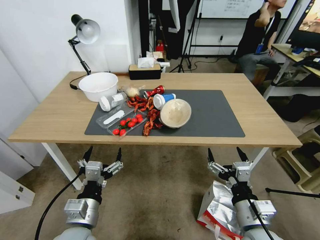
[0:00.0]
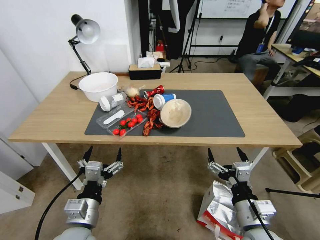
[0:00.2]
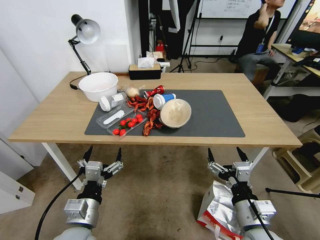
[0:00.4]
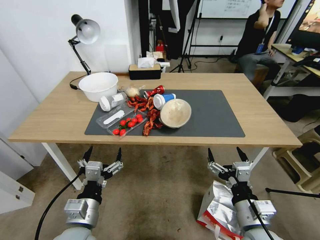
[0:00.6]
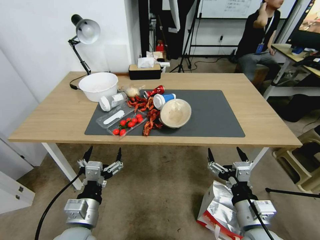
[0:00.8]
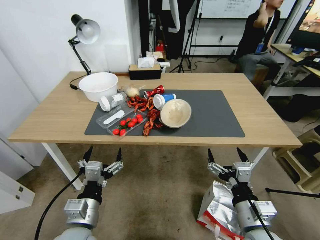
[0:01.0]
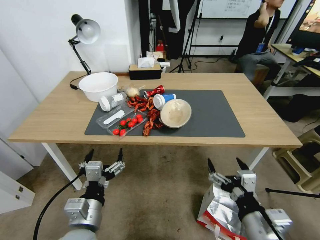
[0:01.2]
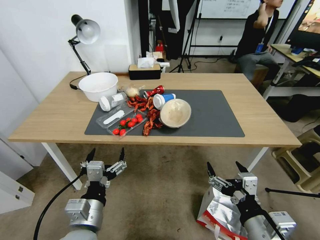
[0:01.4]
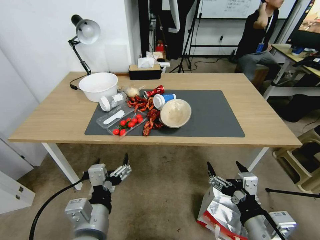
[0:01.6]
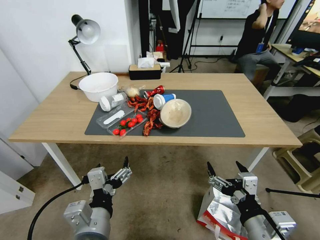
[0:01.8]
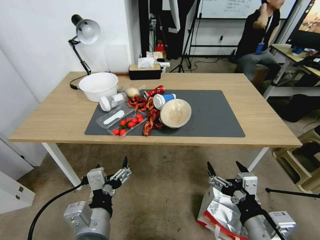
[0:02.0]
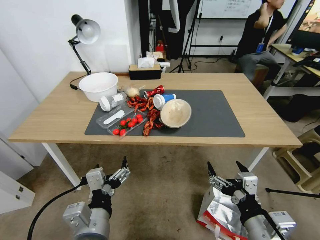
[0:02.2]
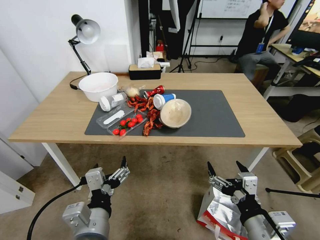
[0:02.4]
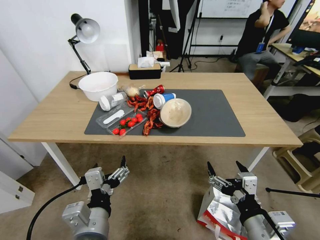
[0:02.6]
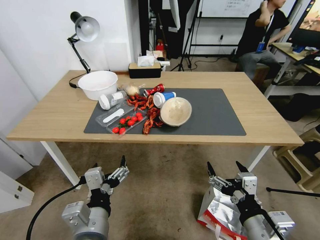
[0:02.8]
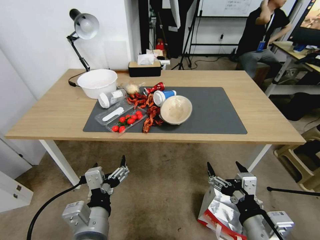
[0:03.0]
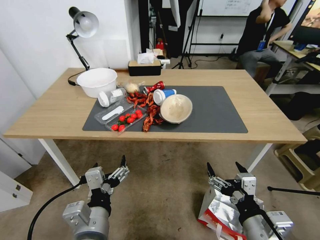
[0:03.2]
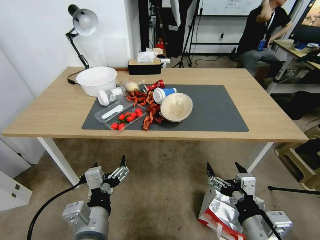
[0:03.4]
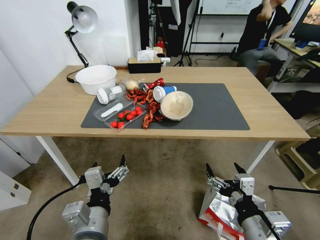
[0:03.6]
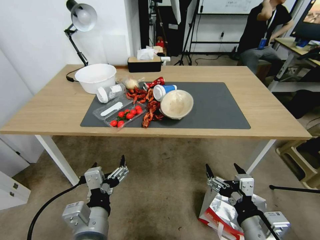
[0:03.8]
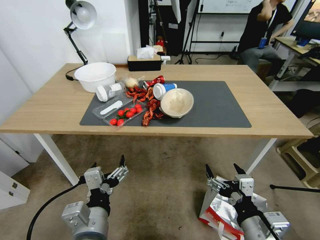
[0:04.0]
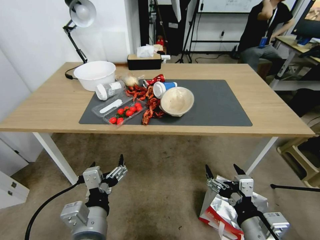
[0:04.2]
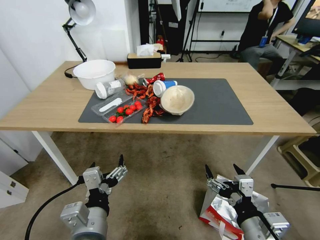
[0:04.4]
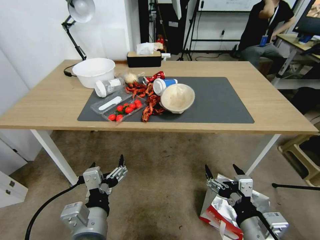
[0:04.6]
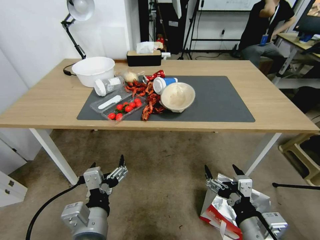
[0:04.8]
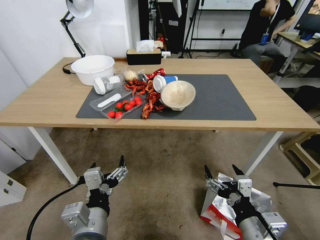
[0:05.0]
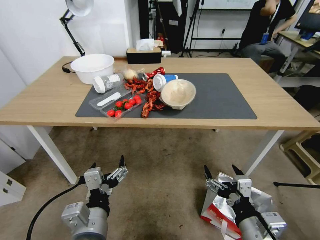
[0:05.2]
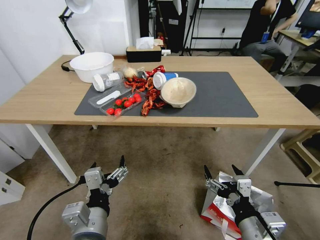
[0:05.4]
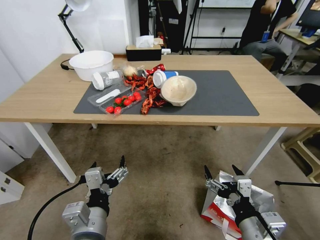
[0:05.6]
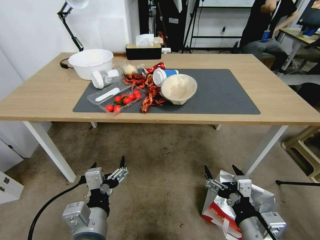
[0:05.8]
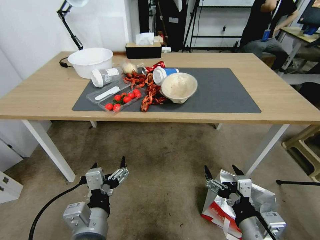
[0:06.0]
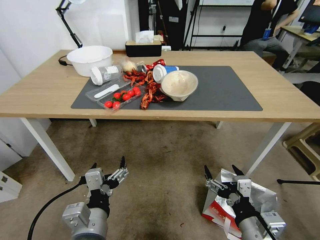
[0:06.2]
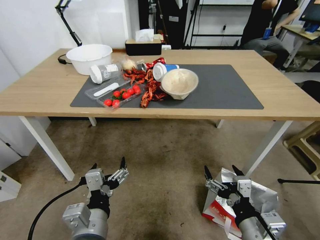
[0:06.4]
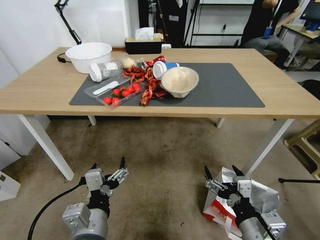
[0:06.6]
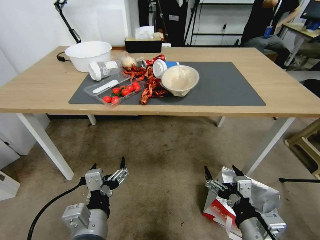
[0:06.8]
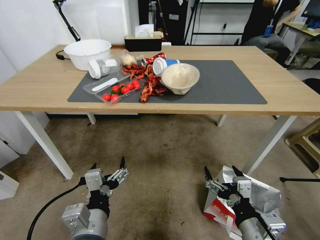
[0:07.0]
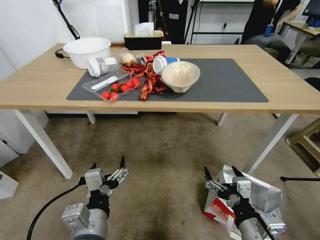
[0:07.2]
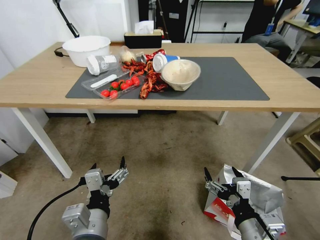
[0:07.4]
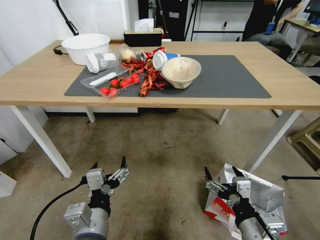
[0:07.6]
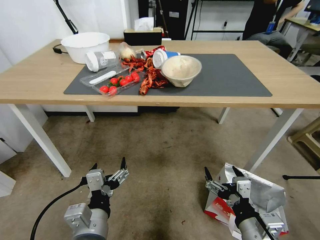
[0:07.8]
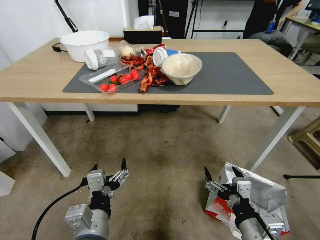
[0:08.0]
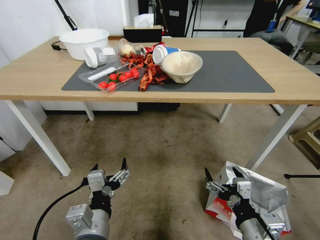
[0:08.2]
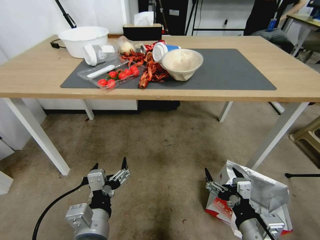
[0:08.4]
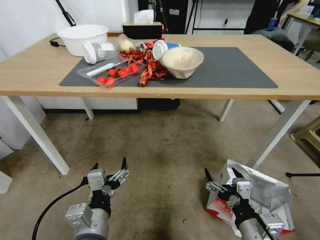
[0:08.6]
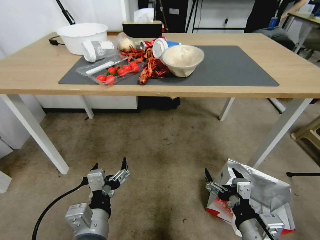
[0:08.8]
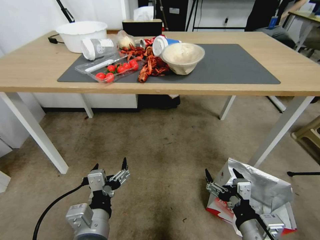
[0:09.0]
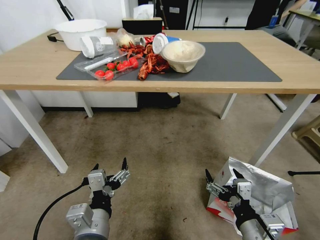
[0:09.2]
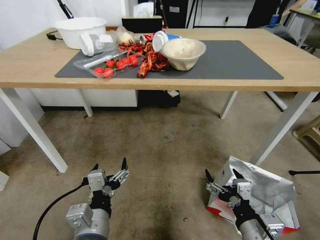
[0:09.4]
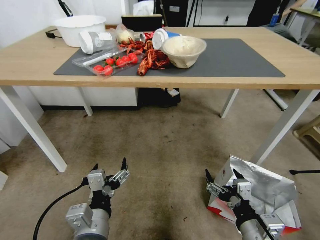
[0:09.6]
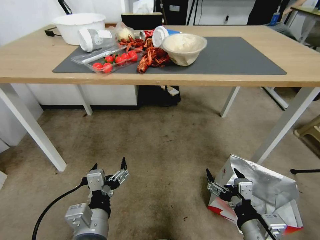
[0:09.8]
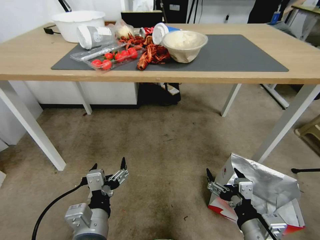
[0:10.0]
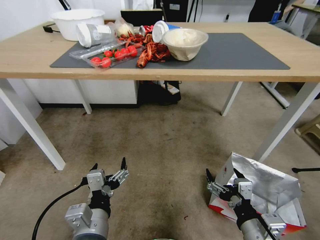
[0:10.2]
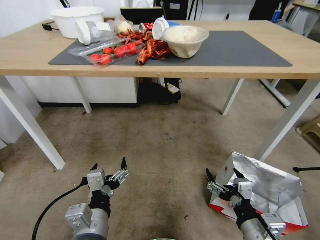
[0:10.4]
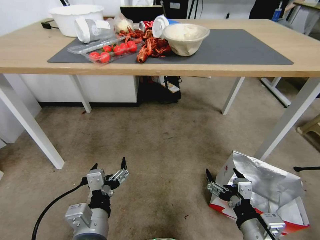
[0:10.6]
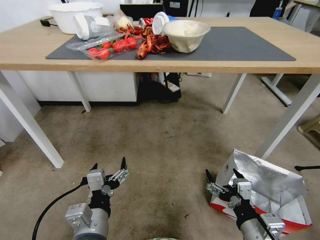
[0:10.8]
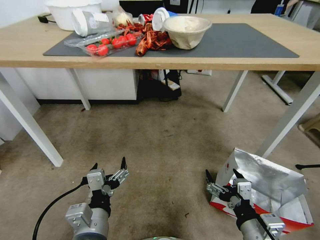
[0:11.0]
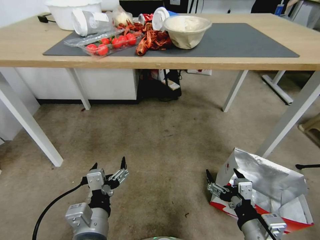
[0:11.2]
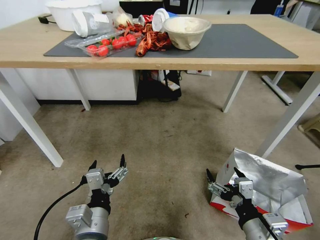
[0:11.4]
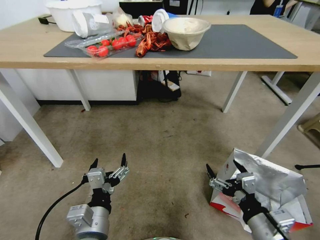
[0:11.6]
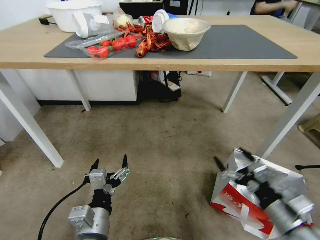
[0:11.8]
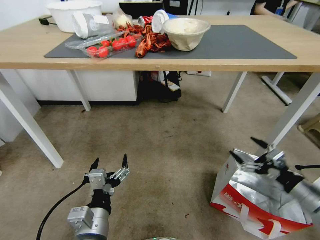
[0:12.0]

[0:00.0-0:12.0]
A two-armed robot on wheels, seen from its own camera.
Task of the whole recording: Pick up the food delivery bag from the floor and place it on the table.
0:01.6 to 0:03.0: There are only small adjustments of the grippers.
0:10.4 to 0:12.0: The right gripper goes roughly 20 cm to the right and forward.

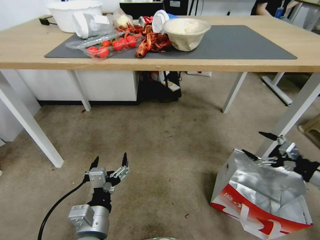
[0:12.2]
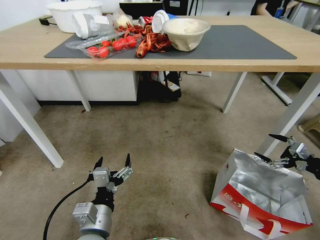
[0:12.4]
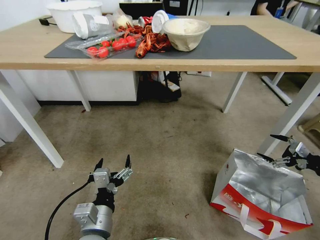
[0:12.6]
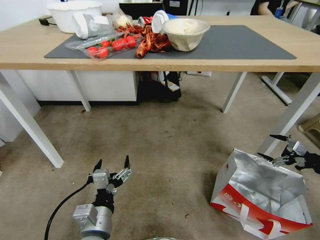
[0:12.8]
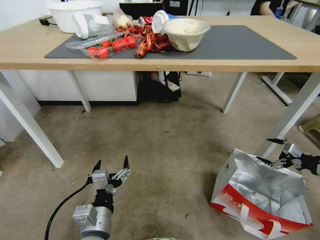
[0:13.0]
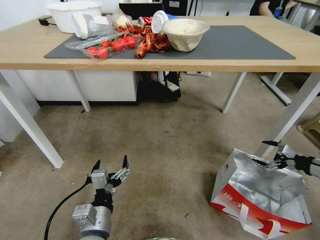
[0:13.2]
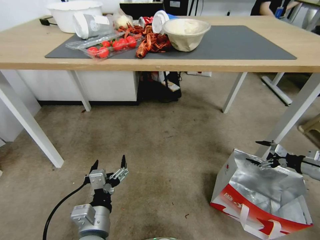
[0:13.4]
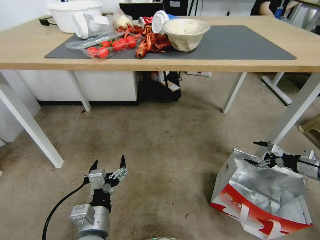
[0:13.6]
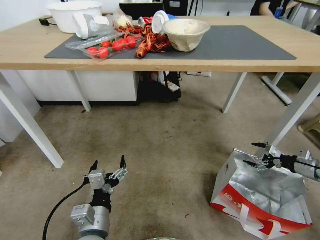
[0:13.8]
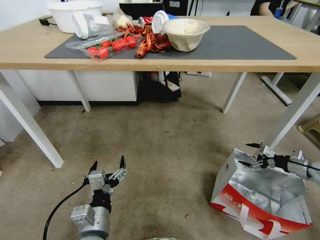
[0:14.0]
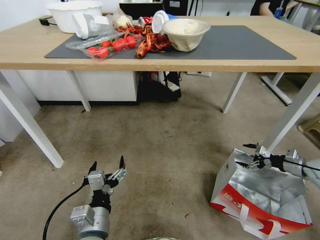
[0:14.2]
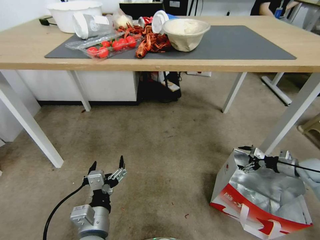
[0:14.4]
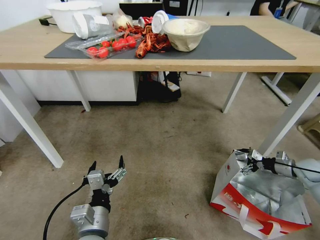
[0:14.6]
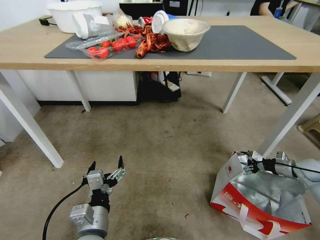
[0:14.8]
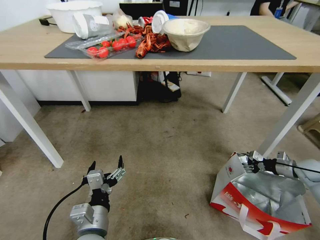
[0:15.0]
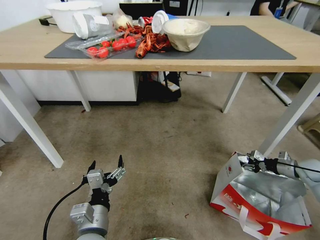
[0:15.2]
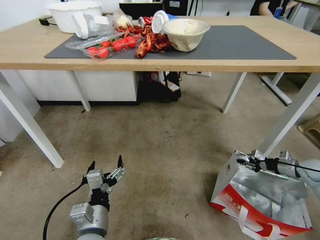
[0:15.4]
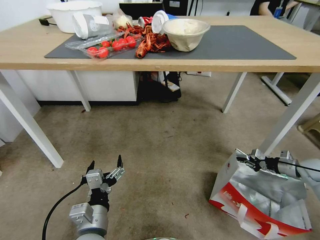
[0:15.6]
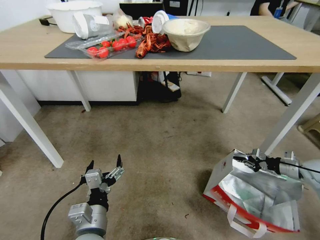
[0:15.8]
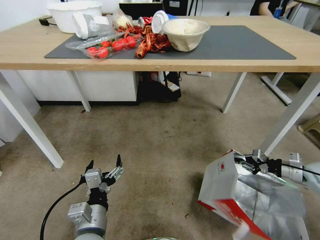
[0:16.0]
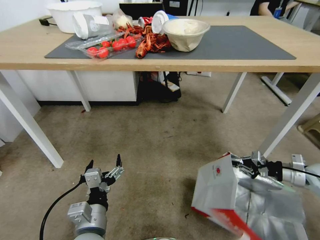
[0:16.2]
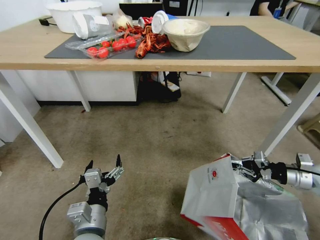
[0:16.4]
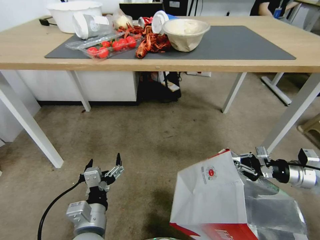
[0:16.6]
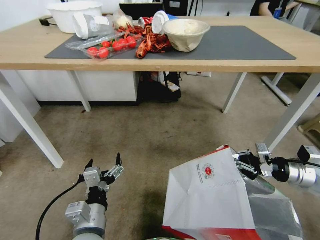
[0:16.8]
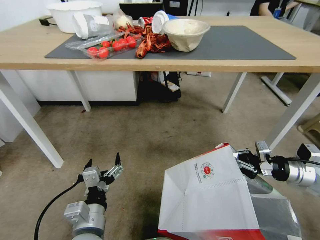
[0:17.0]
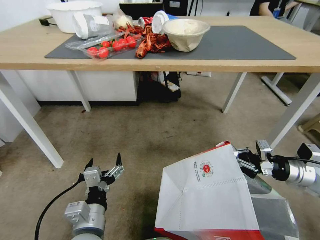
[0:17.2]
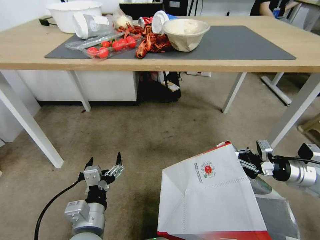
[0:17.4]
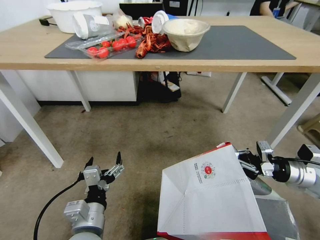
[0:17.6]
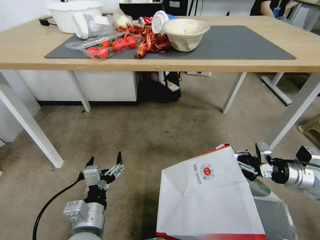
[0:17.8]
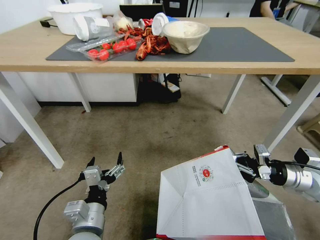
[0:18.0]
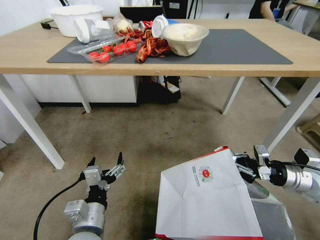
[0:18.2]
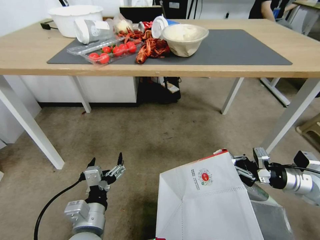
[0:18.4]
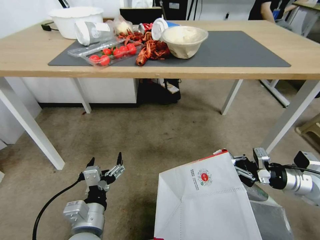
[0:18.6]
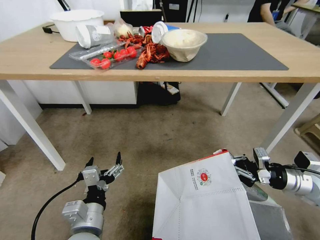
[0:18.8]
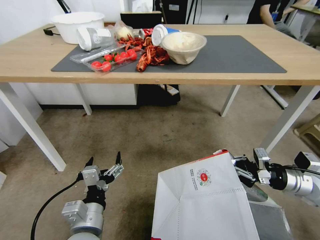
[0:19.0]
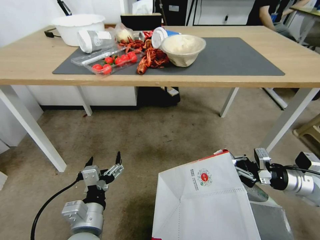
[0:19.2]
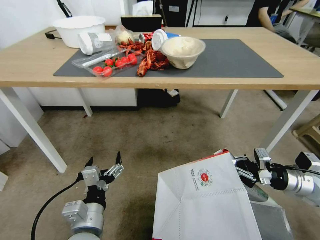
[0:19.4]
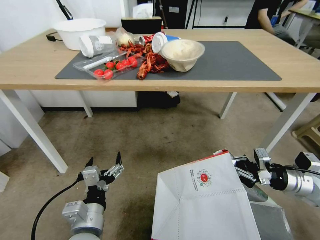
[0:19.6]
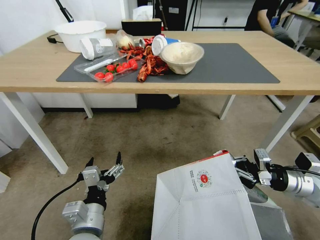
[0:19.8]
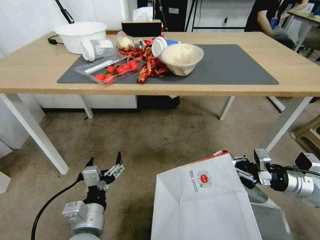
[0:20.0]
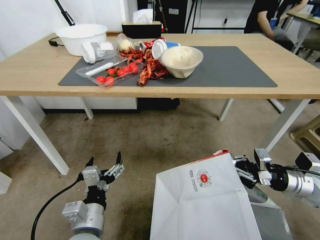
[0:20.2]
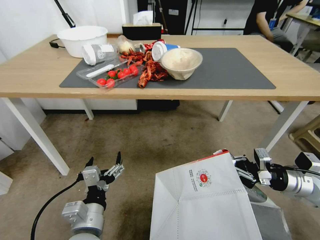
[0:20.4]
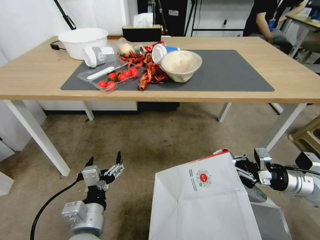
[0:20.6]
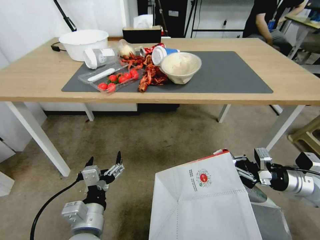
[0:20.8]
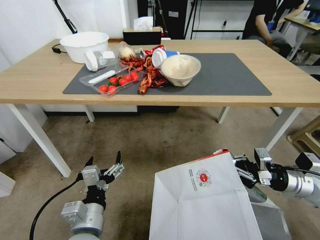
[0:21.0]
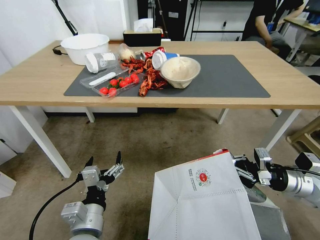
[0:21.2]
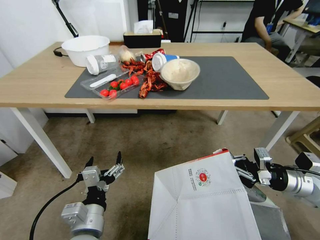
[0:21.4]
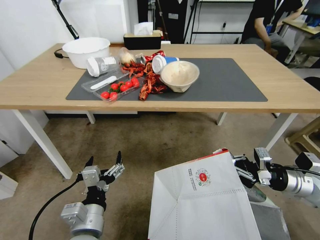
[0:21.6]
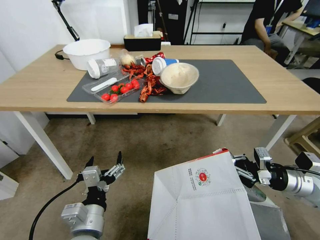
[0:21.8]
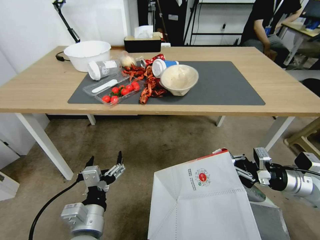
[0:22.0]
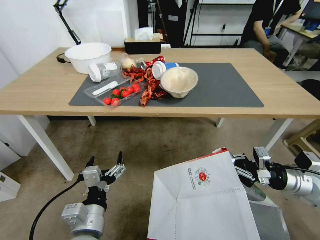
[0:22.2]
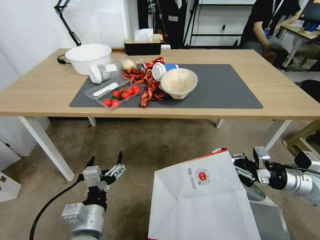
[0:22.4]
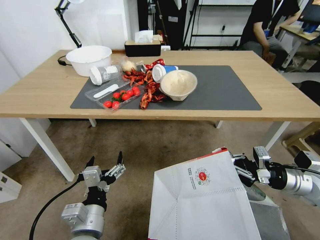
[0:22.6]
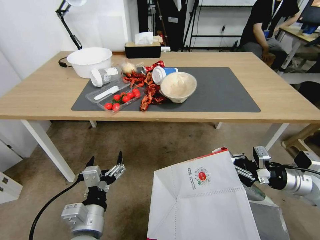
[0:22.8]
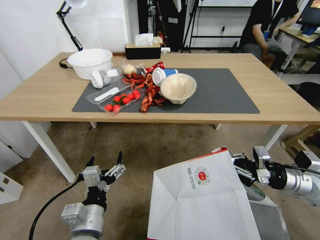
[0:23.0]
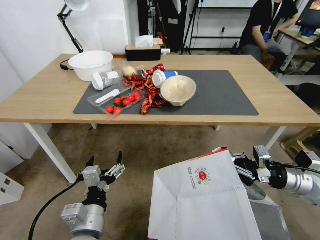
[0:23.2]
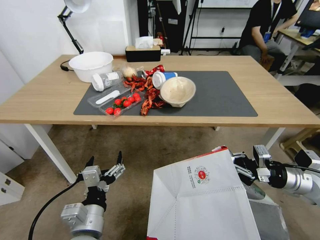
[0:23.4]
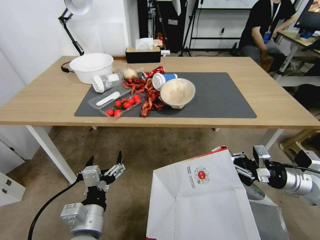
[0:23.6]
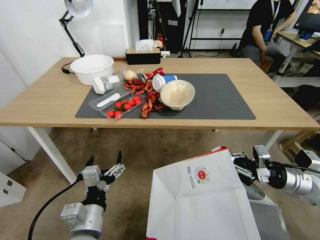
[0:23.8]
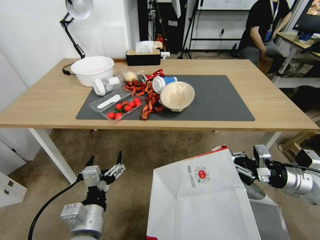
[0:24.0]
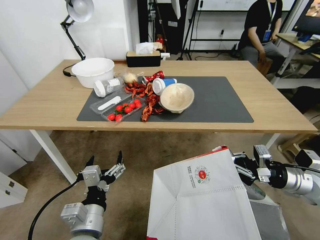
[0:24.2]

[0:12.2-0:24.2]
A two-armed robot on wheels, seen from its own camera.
Task of the whole recording: Pick up the food delivery bag from the floor and place it on the table.
0:12.2 to 0:13.8: The right gripper travels forward, to the right and downward by approximately 15 cm.
0:13.8 to 0:15.2: The right gripper heads downward, covering approximately 5 cm, and closes.
0:15.2 to 0:16.6: The right gripper heads upward, to the left and backward, covering some 20 cm, and closes its fingers.
